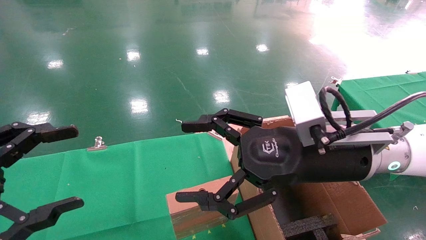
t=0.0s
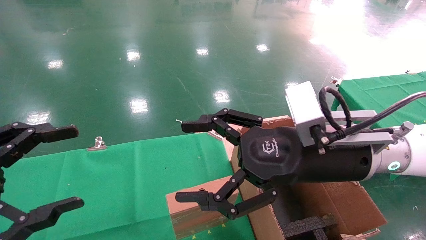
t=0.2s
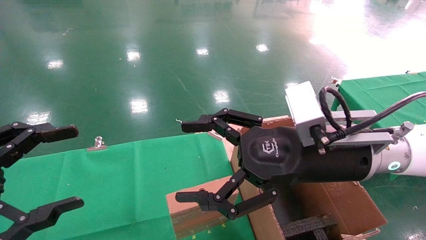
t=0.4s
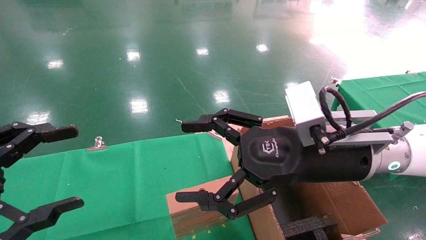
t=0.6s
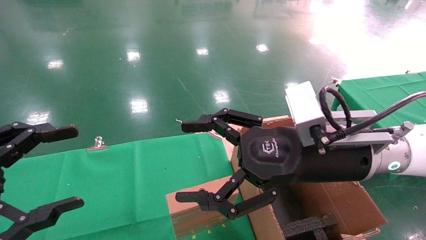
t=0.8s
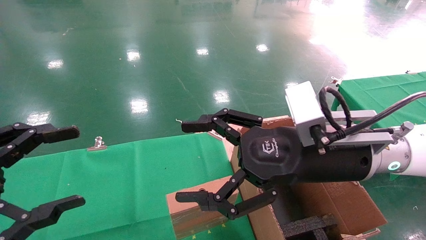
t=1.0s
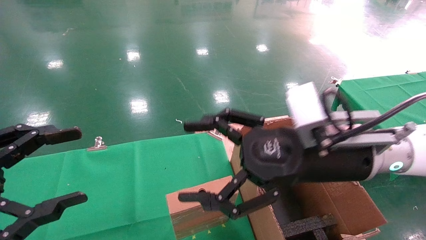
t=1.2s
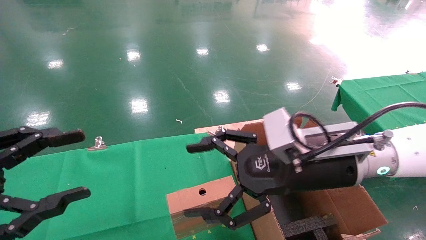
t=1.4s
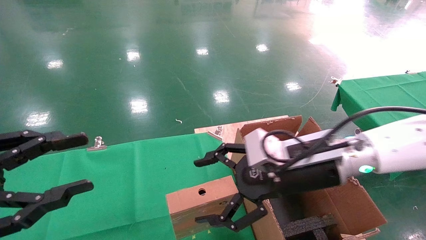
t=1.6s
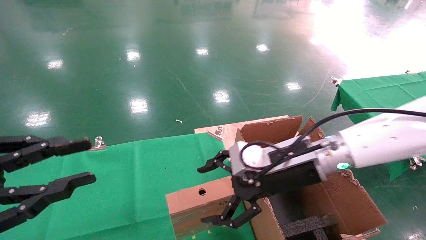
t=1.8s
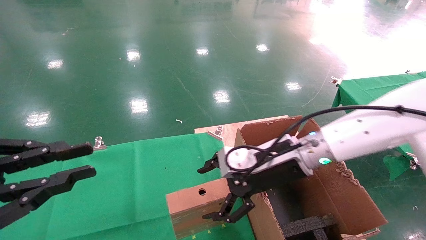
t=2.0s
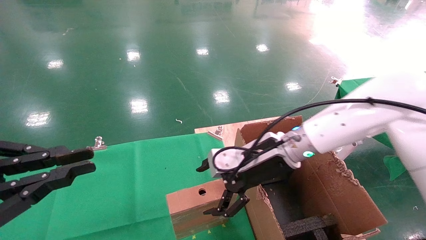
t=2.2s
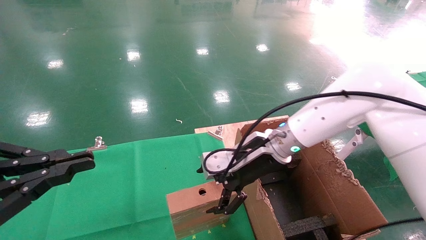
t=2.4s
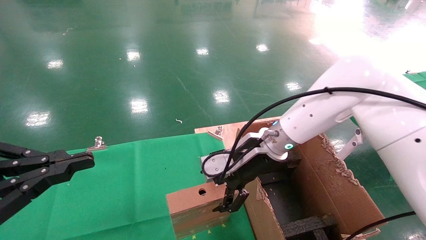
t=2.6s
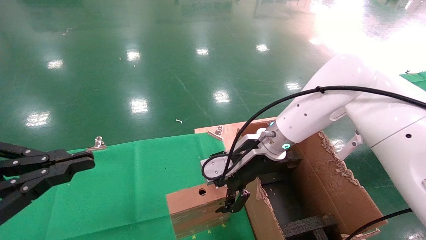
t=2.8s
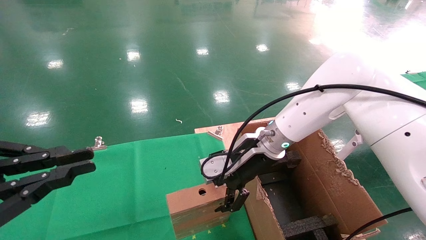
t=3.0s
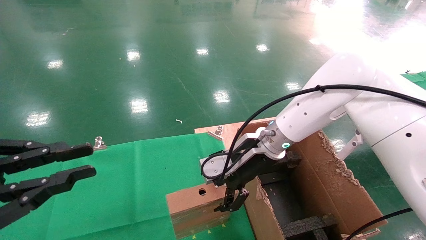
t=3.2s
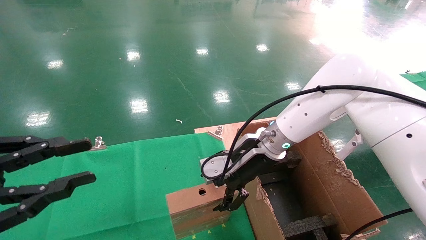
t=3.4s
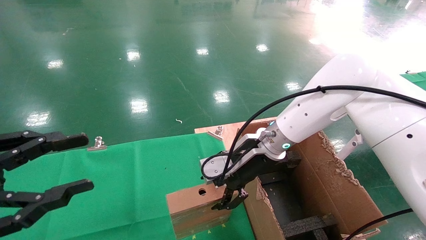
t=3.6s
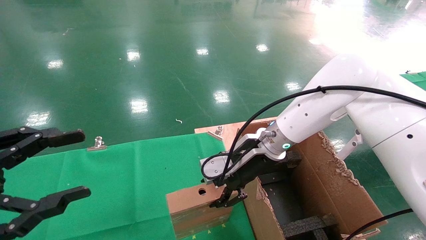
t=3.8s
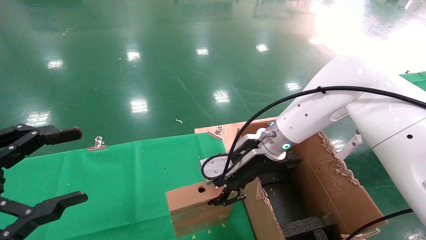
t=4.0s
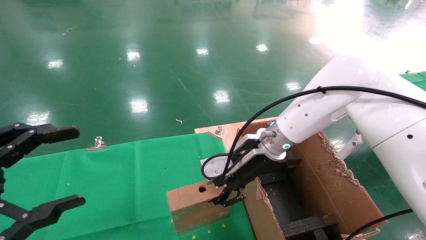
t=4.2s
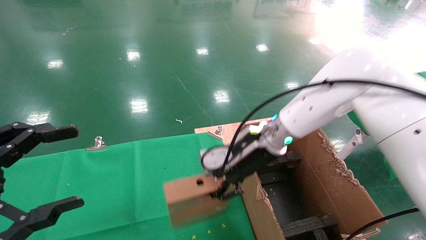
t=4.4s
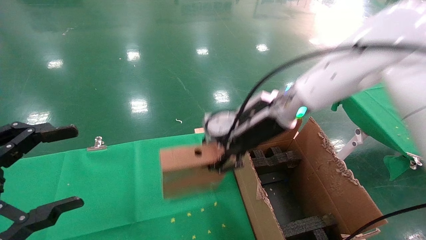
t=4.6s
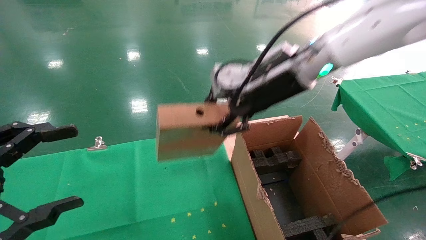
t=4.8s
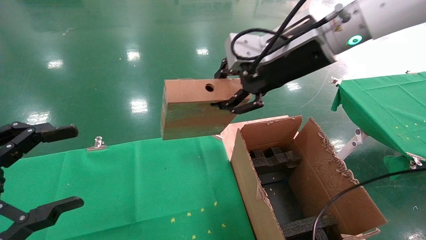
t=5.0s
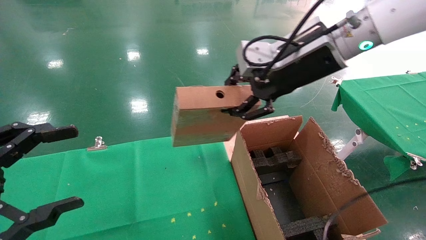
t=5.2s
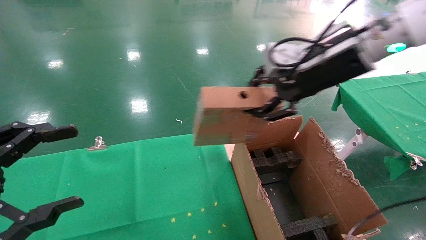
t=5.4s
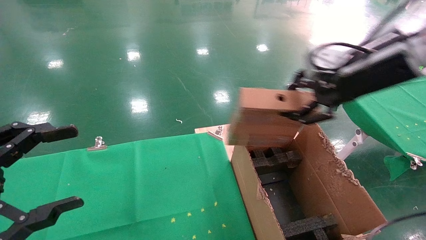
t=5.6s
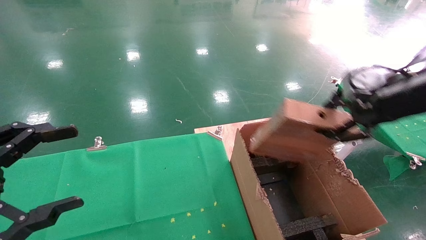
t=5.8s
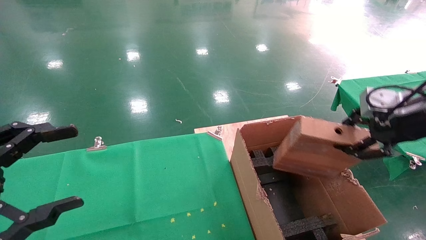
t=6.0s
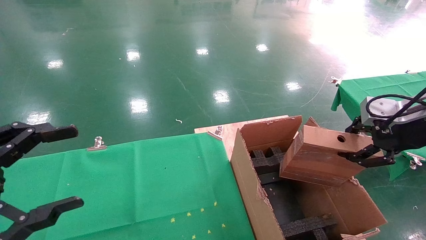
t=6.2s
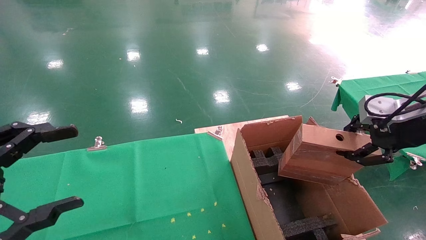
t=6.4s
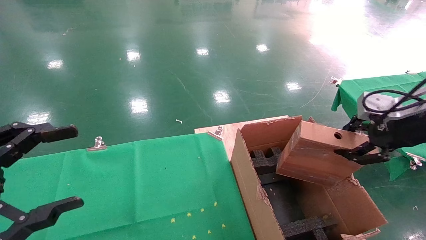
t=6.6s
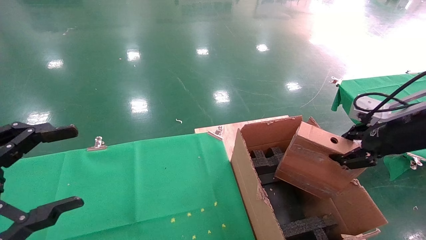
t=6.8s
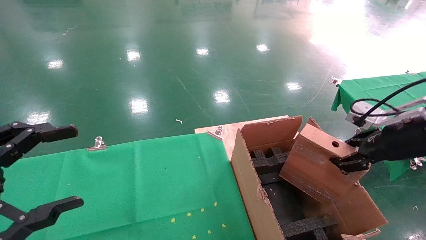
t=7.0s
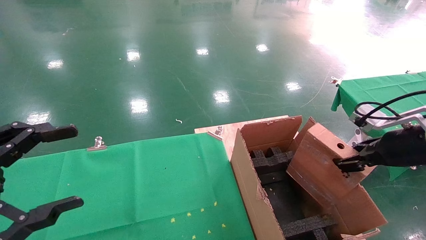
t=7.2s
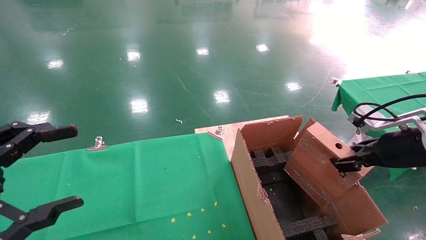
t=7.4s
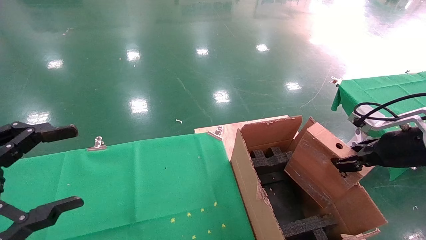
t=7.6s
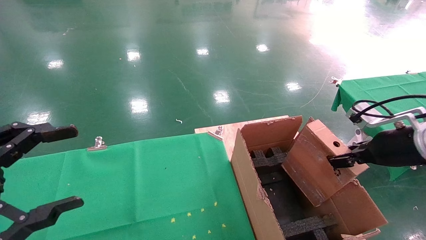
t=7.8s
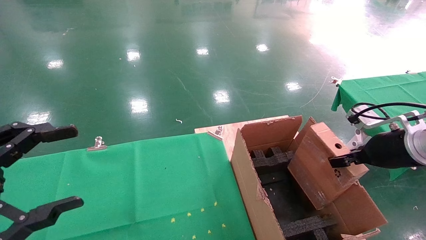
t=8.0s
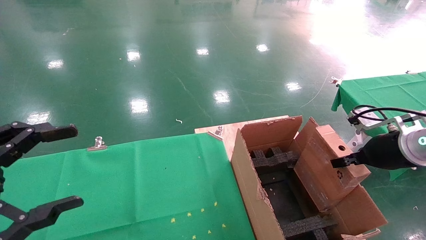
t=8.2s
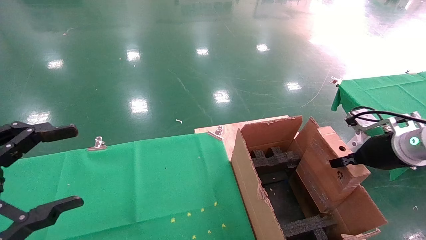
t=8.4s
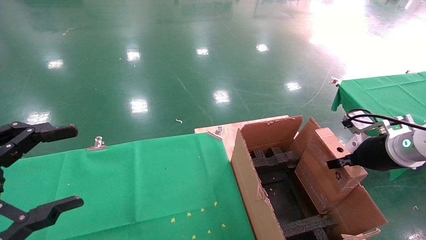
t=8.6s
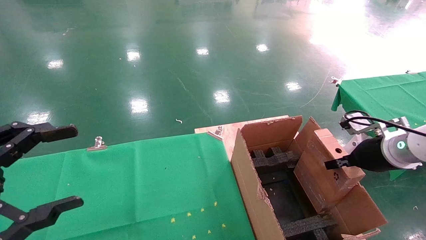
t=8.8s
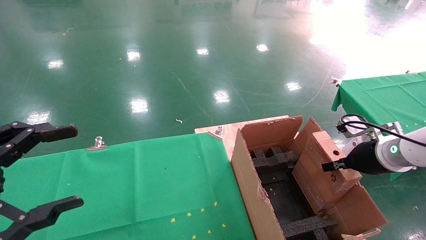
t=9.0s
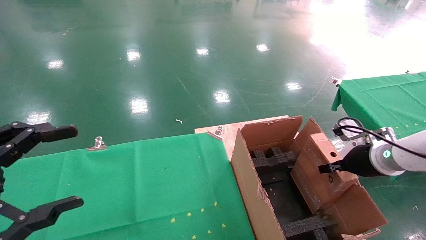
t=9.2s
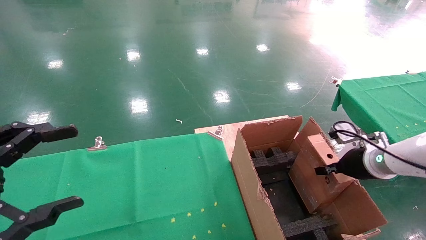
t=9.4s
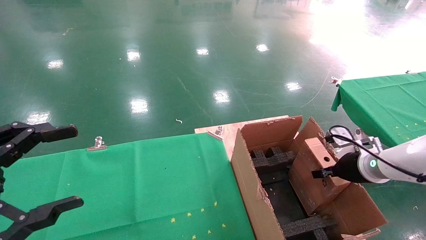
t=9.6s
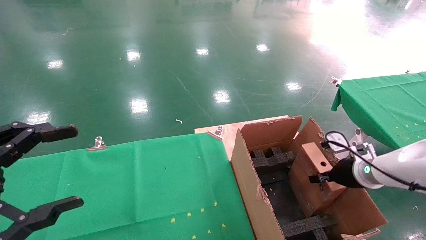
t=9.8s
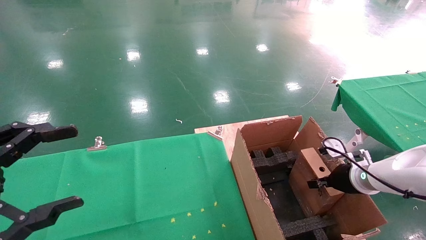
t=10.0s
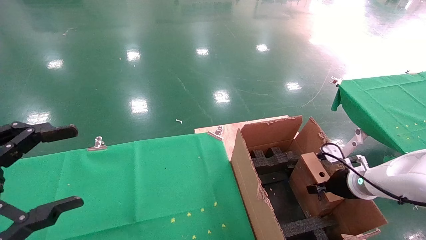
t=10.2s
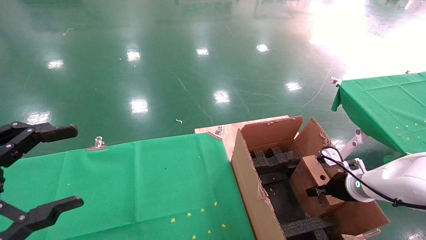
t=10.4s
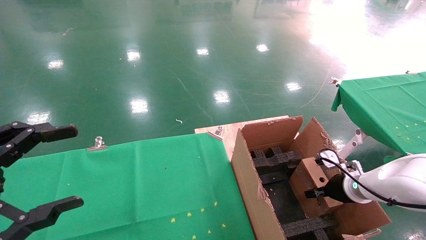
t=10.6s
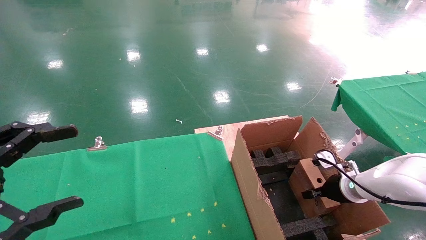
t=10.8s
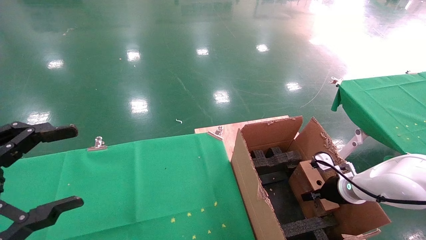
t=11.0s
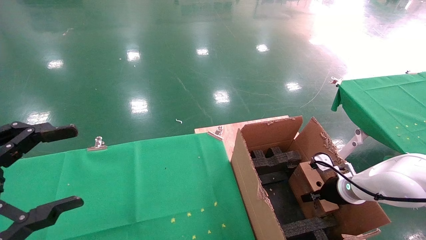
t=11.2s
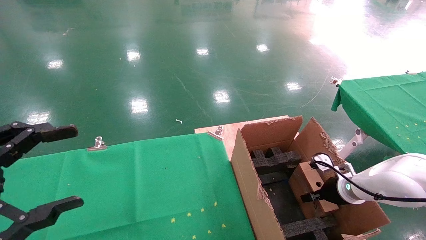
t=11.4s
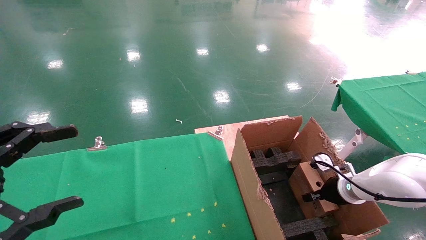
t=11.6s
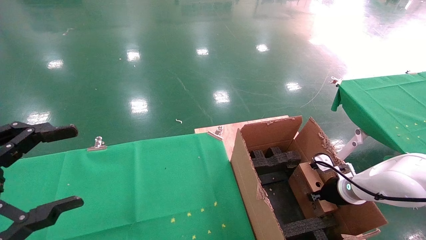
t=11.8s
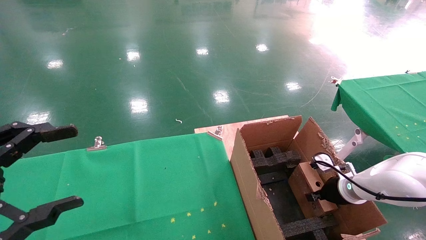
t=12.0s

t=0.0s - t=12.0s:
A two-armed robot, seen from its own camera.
Task of the whole recording: using a robotic arm to pick up a cardboard box and palace it the carton.
Step, t=1.4s - t=4.0s: Pick up the mouse and the power cord paper box.
t=0.0s - t=1.6s: The right gripper shifts by about 5 cm.
t=1.6s - t=3.0s: The right gripper is displaced forward by roughly 10 cm, while the left gripper closes its fingers.
t=3.0s - t=4.4s: The right gripper closes; the left gripper opens its fingers.
t=4.4s - t=6.0s: The right gripper goes roughly 30 cm to the right and backward.
t=6.0s - t=7.6s: The right gripper goes about 10 cm downward.
t=7.6s - t=9.0s: The right gripper goes approximately 10 cm forward and downward.
t=9.0s - t=10.4s: The right gripper is displaced downward by some 10 cm.
t=10.4s - t=12.0s: There are only small adjustments of the grippers.

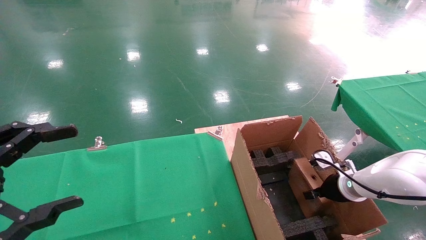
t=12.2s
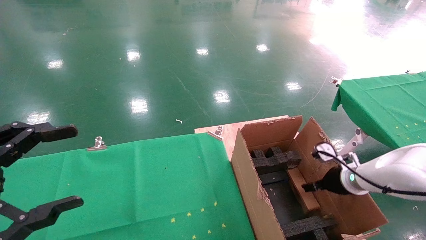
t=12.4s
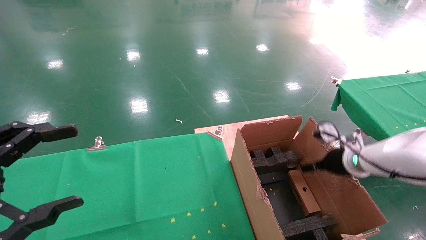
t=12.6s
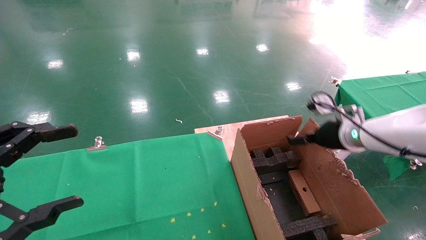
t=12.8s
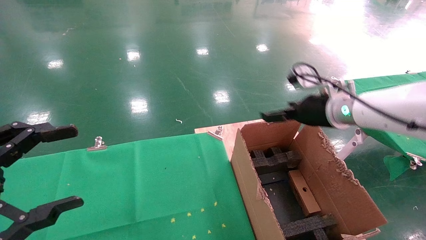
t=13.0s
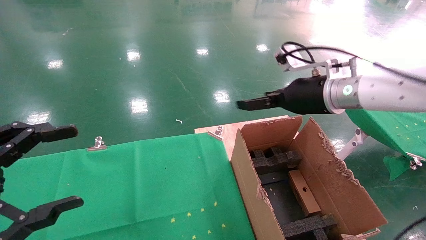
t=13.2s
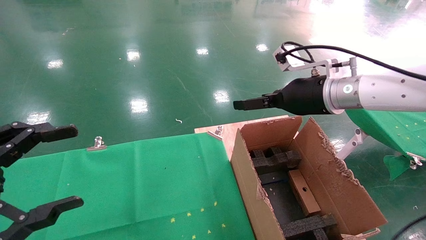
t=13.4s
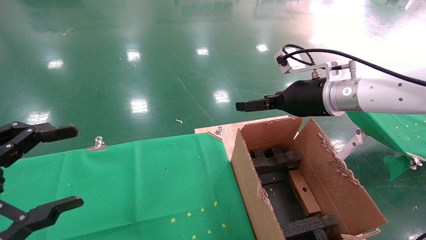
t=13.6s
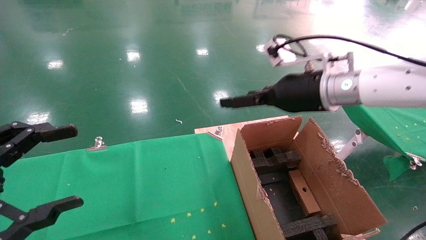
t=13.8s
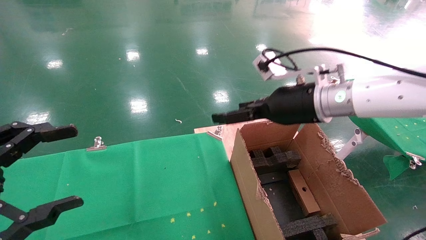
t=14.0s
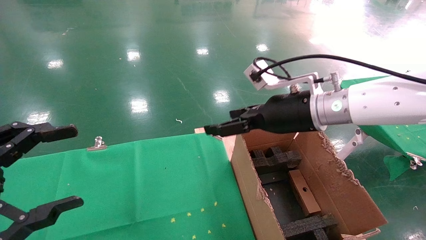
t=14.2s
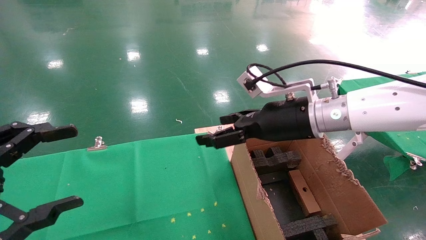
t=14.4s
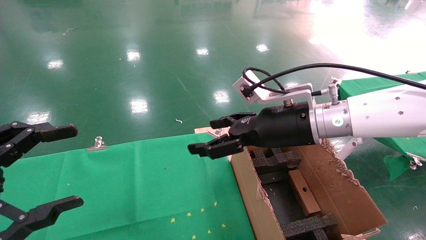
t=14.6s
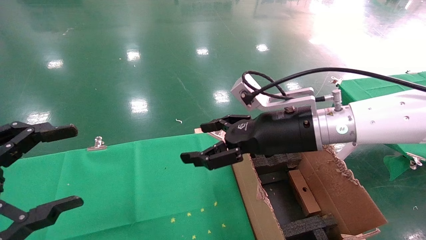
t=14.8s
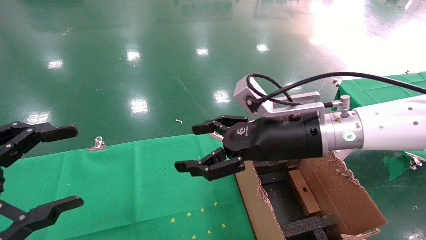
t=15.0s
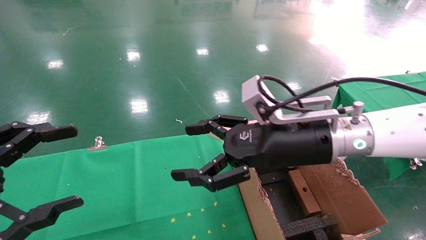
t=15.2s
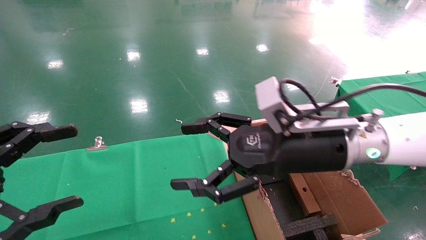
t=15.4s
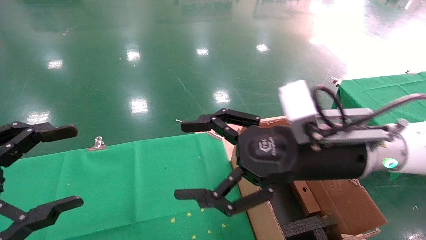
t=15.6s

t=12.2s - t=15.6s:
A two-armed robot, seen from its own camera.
Task of the whole recording: using a robotic arm to pick up a cardboard box and palace it the carton.
t=12.2s - t=13.8s: The right gripper goes approximately 25 cm upward and to the left, and opens.
t=13.8s - t=15.6s: The right gripper heads backward and to the left, covering roughly 10 cm.
